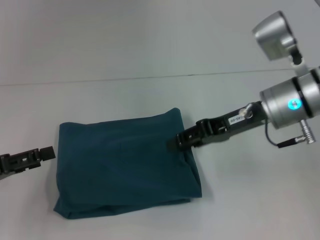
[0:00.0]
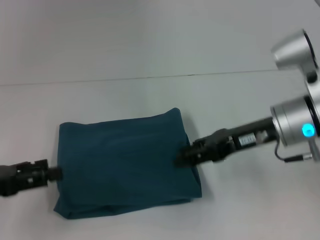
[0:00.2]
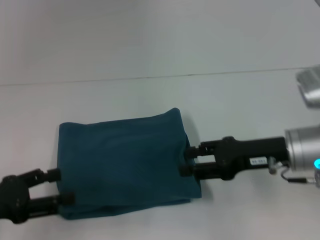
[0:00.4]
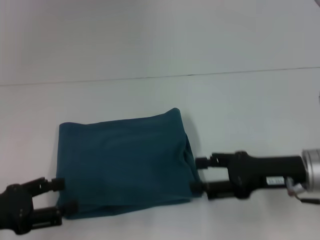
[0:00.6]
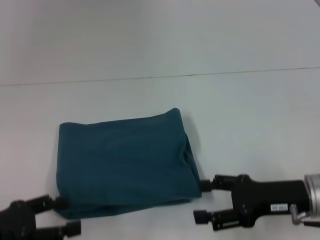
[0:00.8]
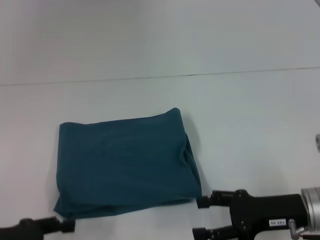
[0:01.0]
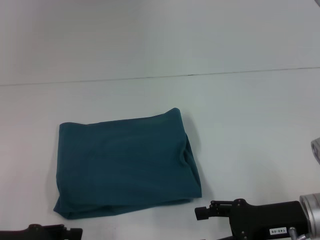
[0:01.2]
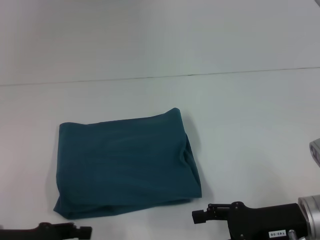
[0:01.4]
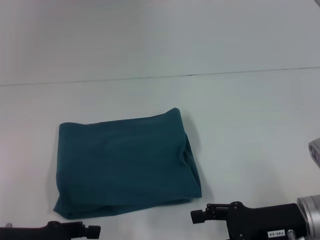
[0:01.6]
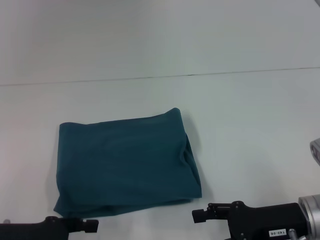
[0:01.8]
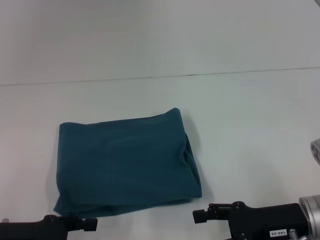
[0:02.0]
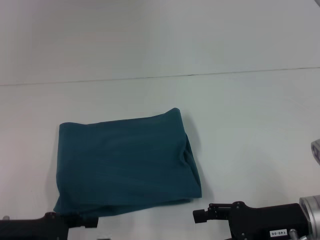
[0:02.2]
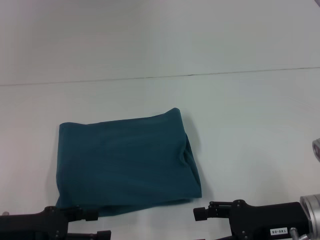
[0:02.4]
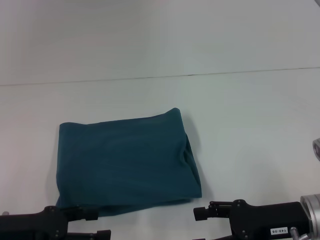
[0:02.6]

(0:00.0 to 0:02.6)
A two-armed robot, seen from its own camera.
0:00.0 - 0:01.2: The left gripper ends up about 5 cm from where it was. The right gripper shifts some 15 cm backward and downward, and opens.
0:01.2 - 0:02.6: There are only small adjustments of the grippers.

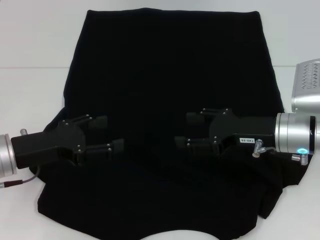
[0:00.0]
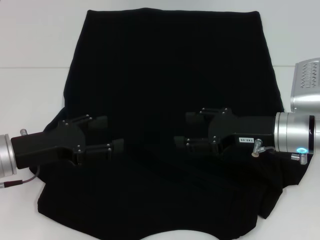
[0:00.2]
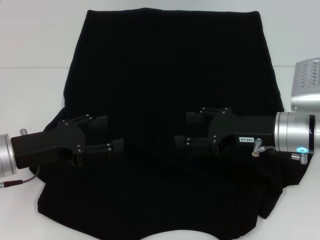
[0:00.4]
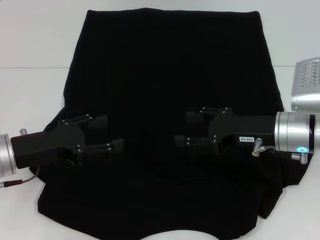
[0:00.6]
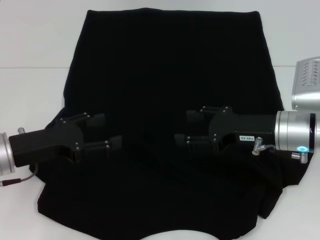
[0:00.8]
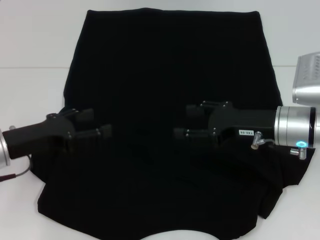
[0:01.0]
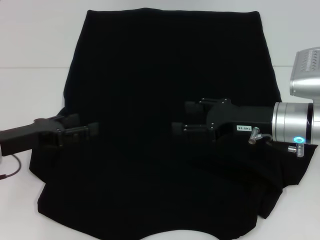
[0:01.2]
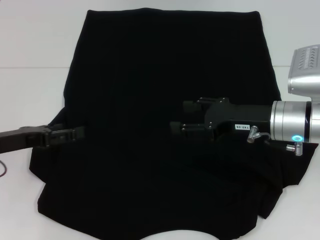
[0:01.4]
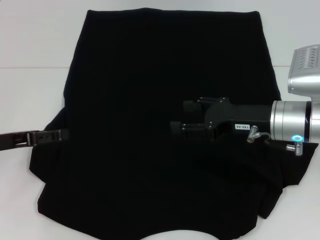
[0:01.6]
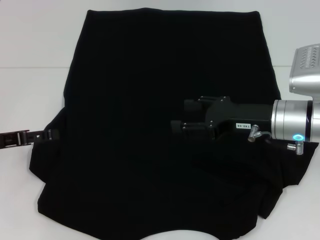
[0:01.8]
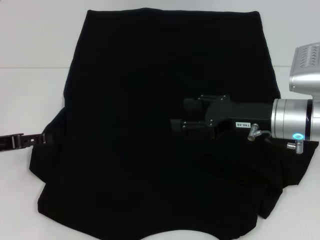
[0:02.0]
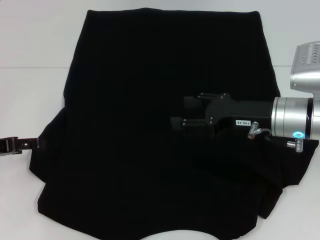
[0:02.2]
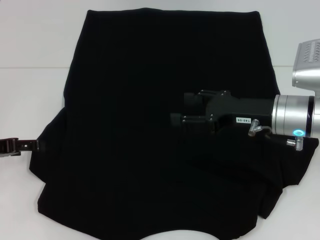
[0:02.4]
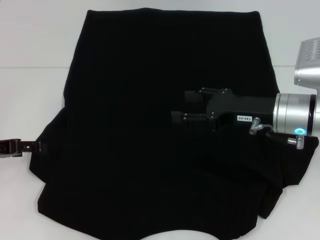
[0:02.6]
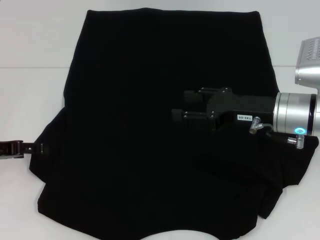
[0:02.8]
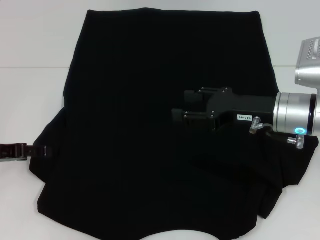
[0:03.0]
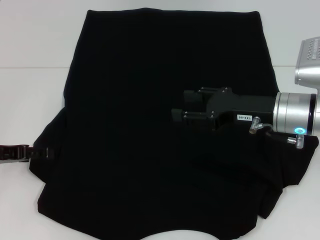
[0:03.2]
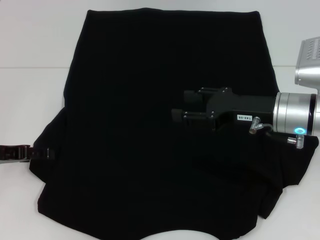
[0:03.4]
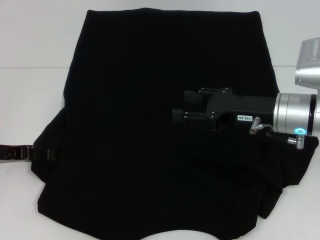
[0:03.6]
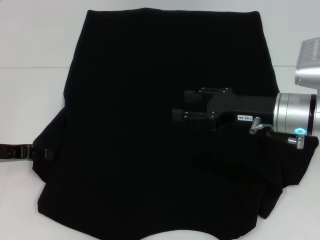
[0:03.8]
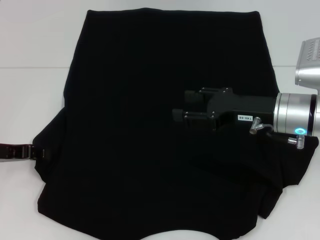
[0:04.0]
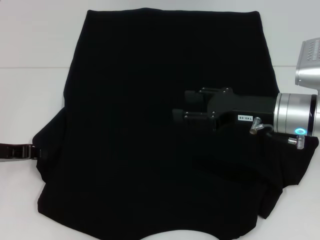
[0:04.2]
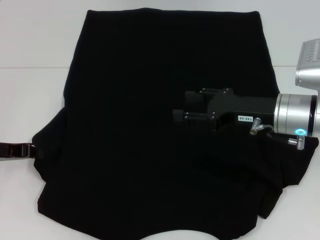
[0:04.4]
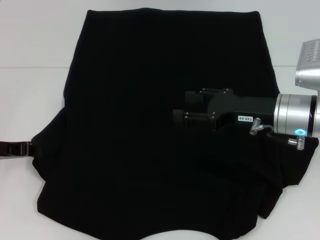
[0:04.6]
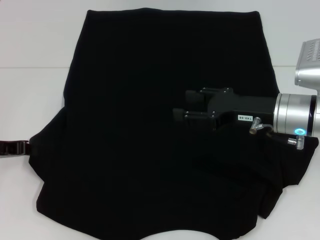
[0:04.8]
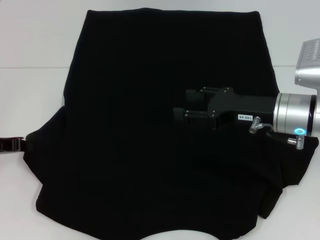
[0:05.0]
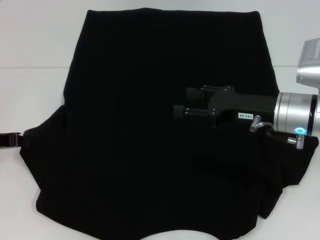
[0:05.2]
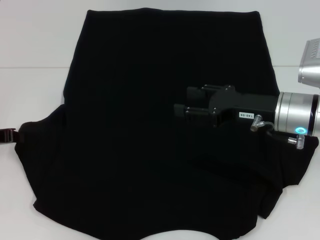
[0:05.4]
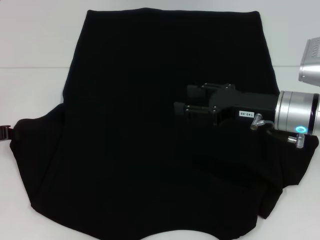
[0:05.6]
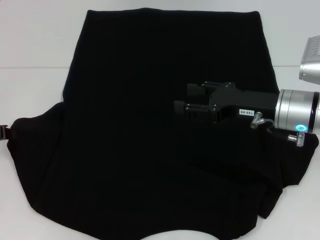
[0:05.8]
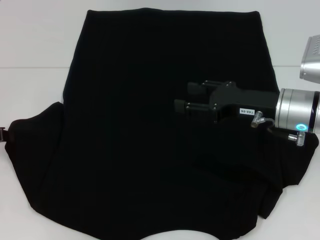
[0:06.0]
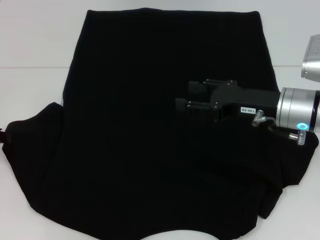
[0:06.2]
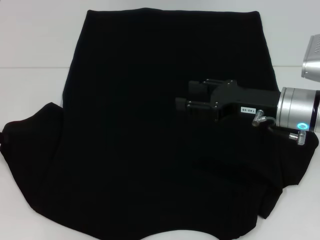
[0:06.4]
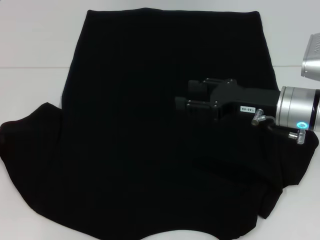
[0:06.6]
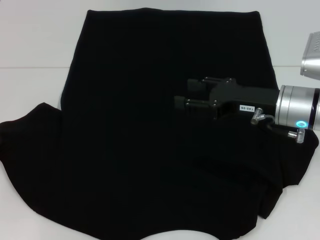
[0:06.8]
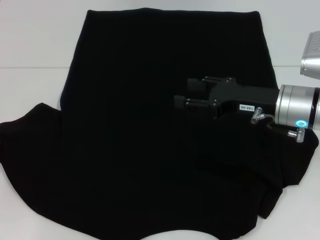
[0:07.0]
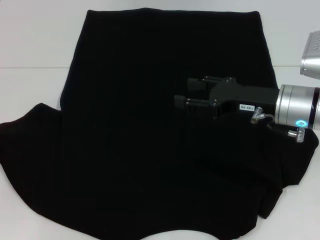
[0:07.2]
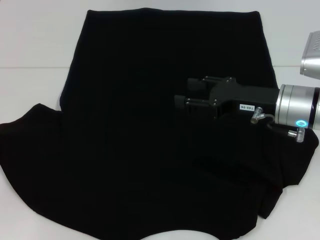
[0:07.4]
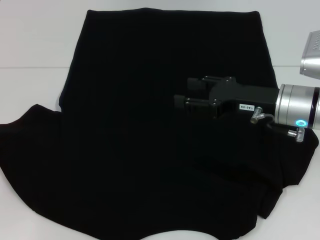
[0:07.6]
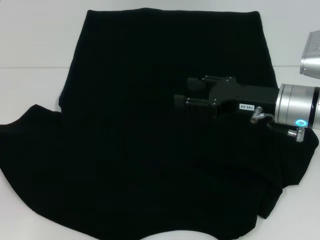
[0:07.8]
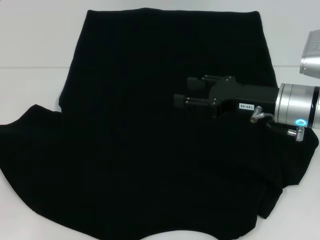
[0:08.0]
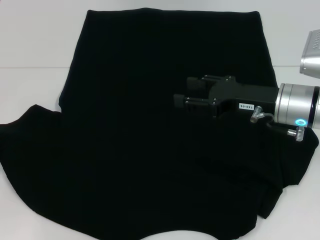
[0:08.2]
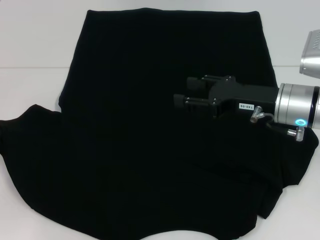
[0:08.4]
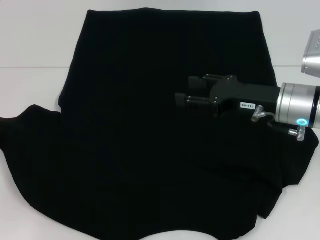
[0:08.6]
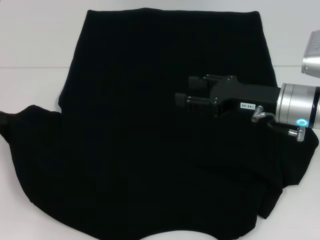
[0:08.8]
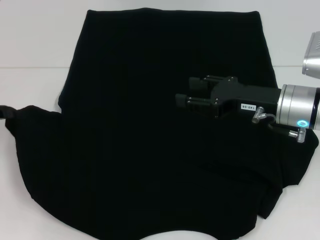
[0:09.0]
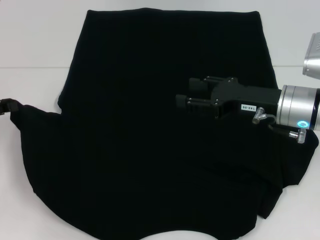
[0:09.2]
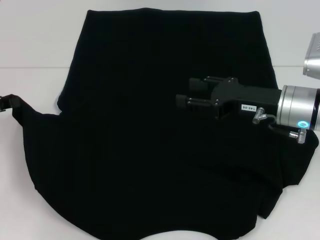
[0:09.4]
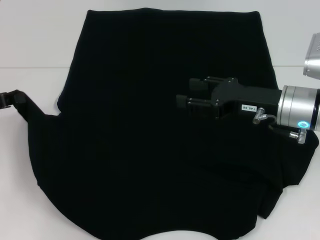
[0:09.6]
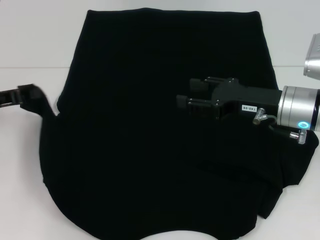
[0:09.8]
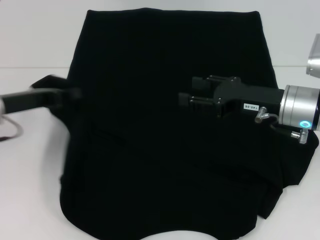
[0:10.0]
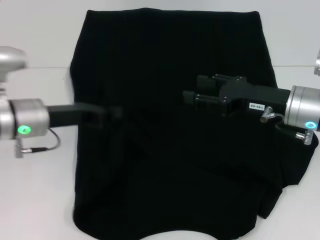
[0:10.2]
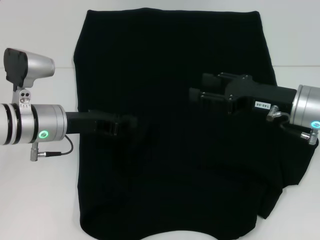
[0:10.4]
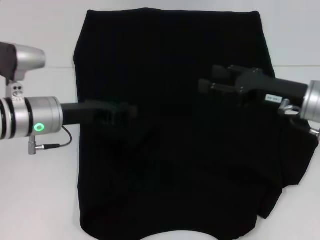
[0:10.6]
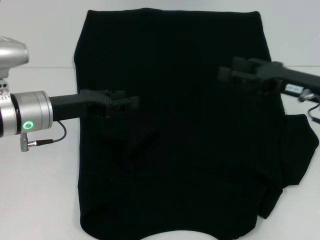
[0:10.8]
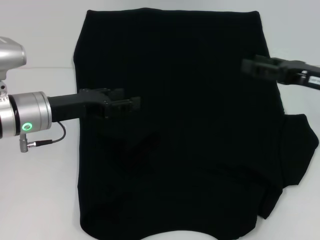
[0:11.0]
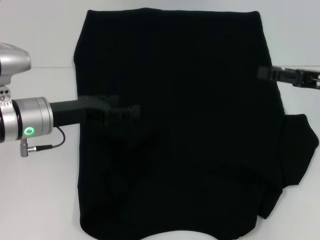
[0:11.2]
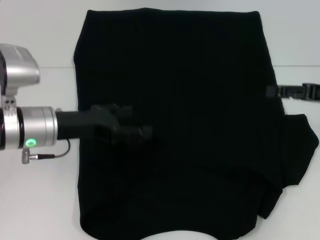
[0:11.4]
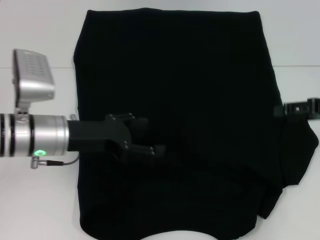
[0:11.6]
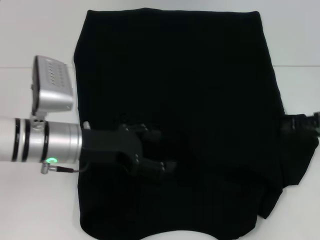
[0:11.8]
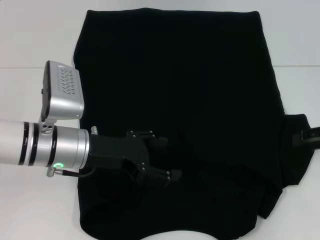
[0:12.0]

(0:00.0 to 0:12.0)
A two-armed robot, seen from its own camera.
Step, 0:00.0 - 0:10.4: Fold the bottom left sleeve with your left hand.
0:00.0 - 0:01.6: The left gripper is displaced to the left by about 5 cm.
0:01.6 - 0:03.0: The grippers move only a little.
0:03.0 - 0:04.4: The left gripper closes up.
0:04.4 - 0:07.6: There are only small adjustments of the grippers.
0:07.6 - 0:09.0: The grippers move only a little.
0:09.0 - 0:10.4: The left gripper heads to the right, covering roughly 15 cm.
0:10.4 - 0:12.0: The right gripper heads to the right, covering about 15 cm, while the left gripper moves about 5 cm, and opens its fingers.

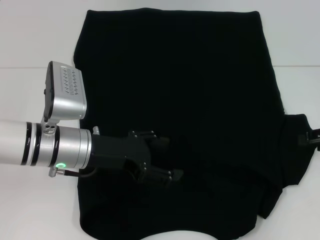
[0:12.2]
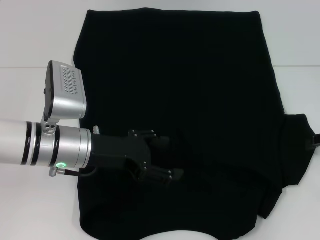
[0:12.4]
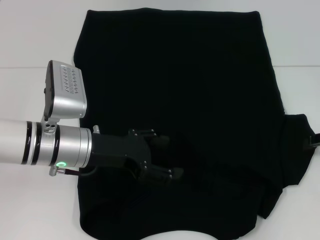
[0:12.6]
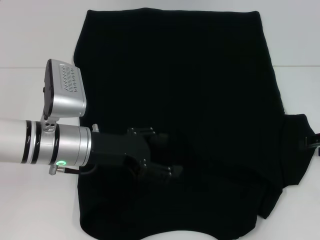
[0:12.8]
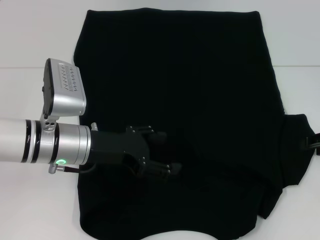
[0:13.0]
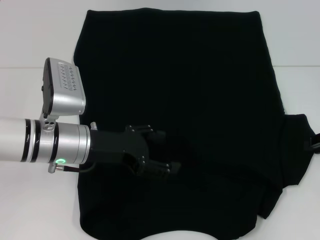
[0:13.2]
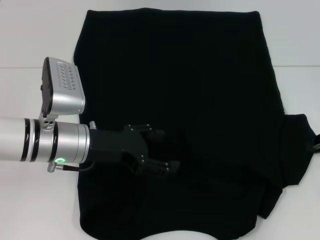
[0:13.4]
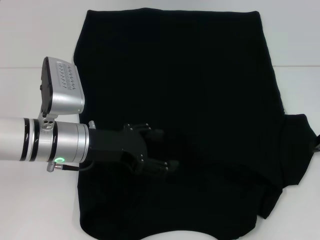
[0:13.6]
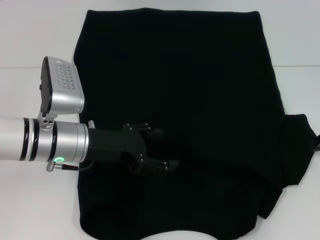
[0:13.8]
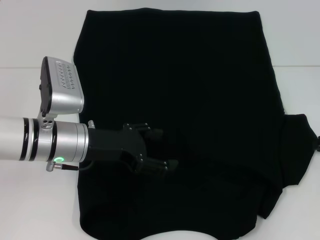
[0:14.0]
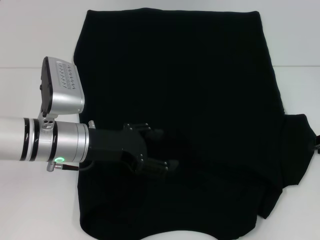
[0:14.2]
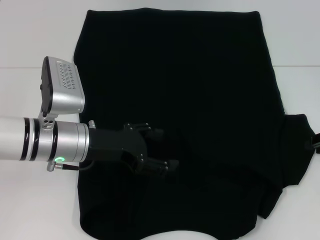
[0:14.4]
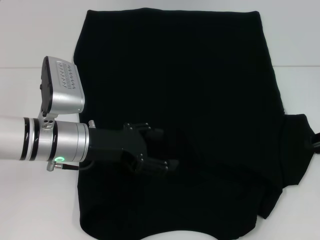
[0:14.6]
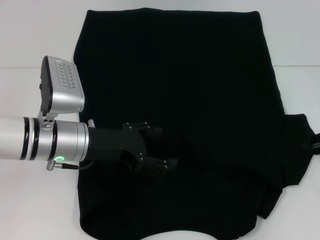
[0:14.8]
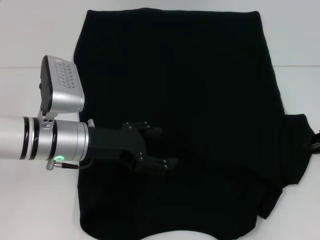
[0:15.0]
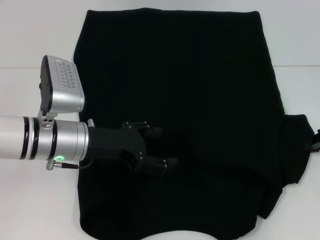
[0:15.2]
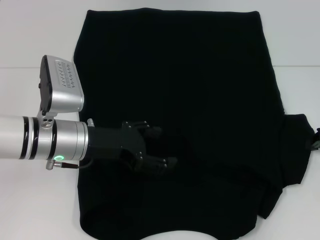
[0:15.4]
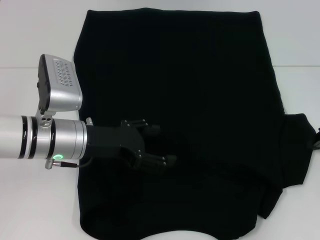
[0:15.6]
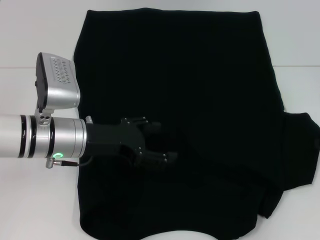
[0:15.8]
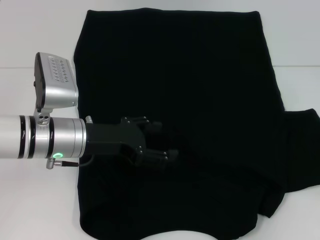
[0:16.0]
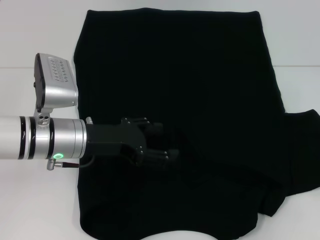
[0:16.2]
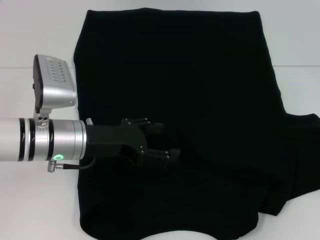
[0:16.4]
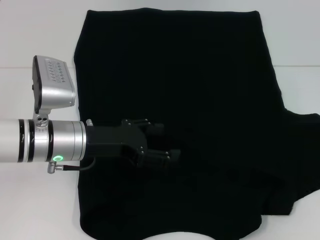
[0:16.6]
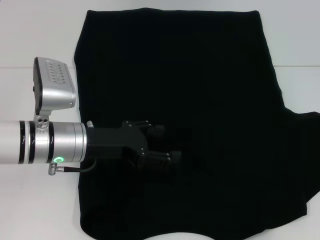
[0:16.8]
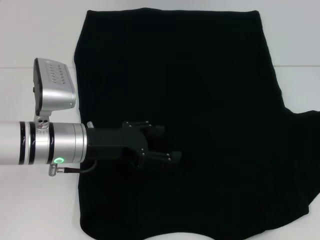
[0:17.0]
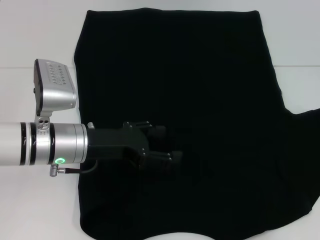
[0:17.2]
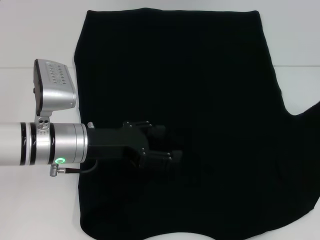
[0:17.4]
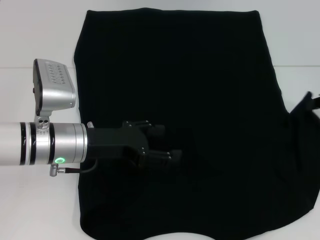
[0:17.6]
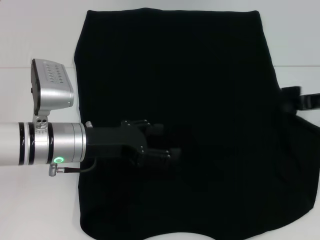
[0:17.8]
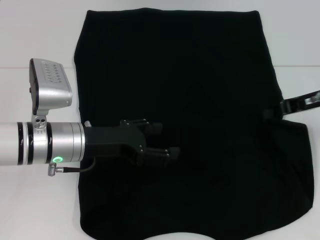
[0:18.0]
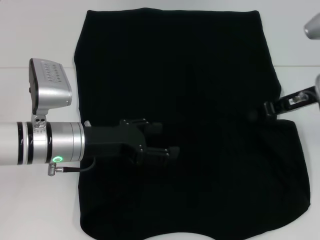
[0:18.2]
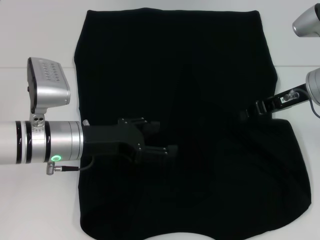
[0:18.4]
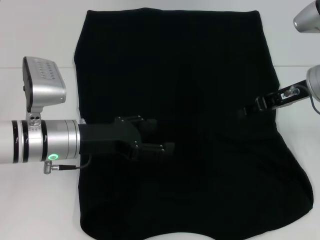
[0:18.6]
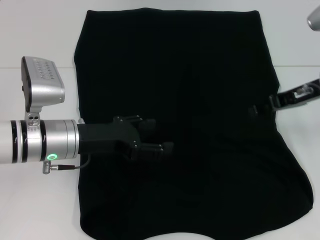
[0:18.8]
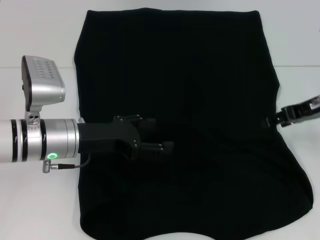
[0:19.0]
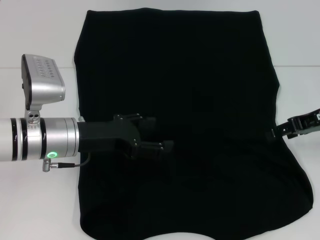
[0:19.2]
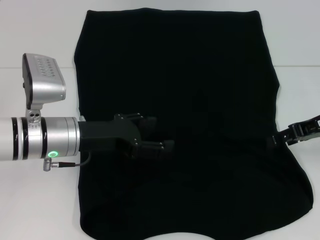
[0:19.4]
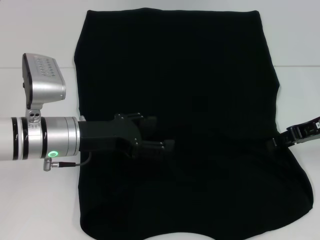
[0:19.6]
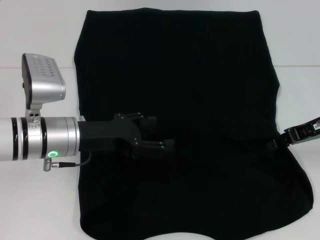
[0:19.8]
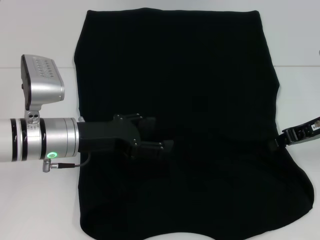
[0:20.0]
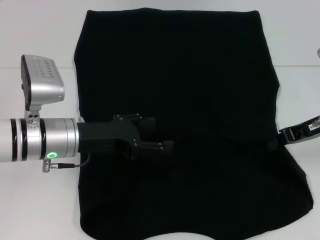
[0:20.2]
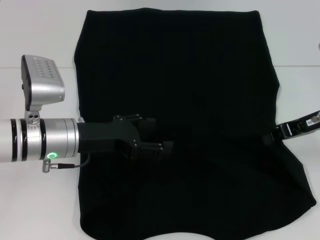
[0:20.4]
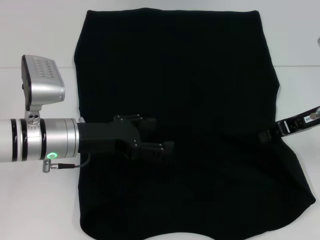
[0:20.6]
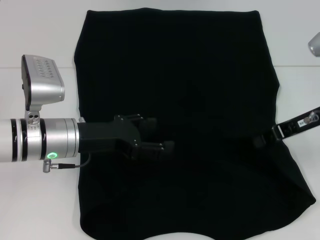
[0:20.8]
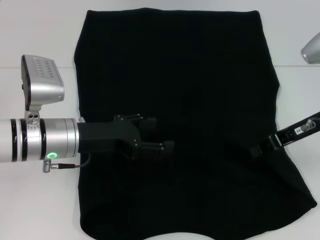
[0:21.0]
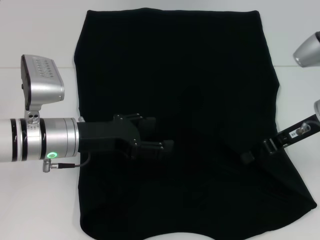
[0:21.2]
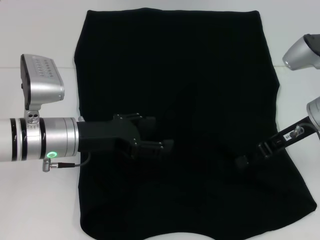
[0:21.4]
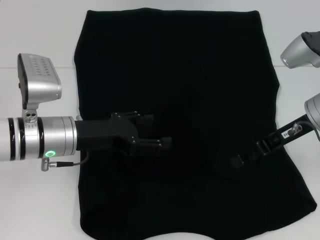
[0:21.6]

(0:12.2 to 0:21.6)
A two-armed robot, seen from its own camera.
0:13.8 - 0:15.4: Both grippers stay put.
0:15.4 - 0:17.0: The right gripper ends up approximately 5 cm from where it was.
0:17.0 - 0:18.4: The right gripper shifts roughly 15 cm to the left.
0:18.4 - 0:20.0: The right gripper changes place by some 5 cm, and opens.
0:20.0 - 0:21.6: The right gripper goes roughly 5 cm to the left, and closes and opens again.
